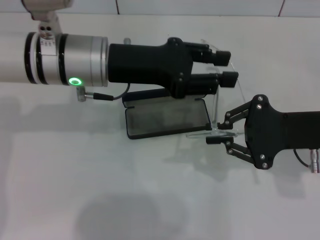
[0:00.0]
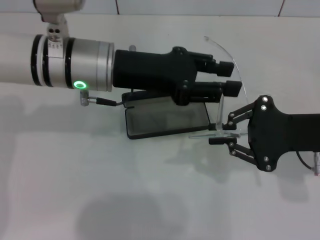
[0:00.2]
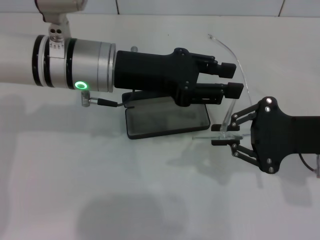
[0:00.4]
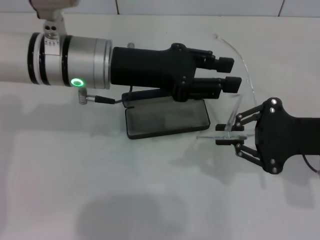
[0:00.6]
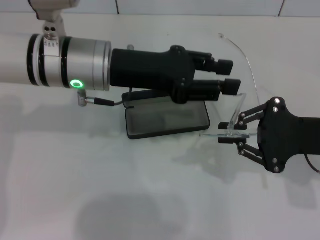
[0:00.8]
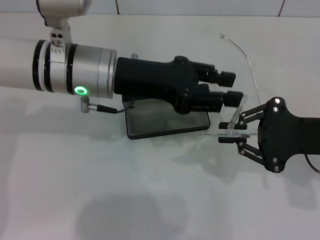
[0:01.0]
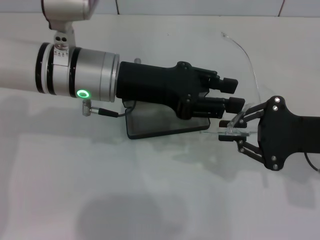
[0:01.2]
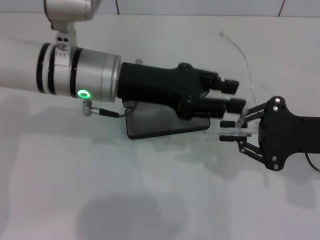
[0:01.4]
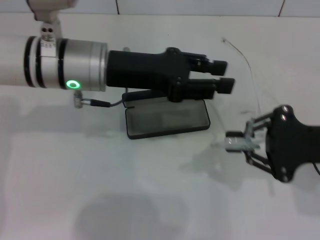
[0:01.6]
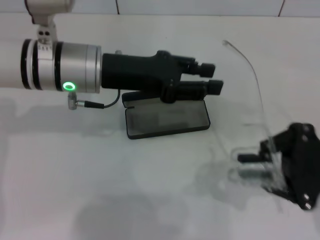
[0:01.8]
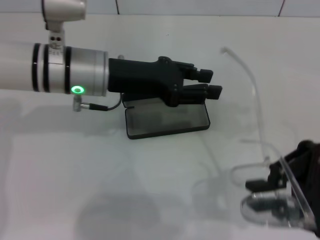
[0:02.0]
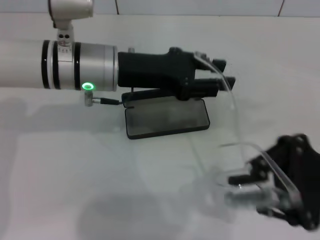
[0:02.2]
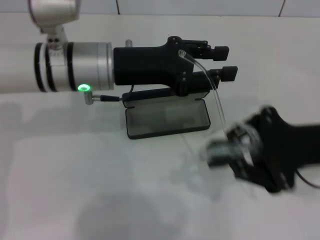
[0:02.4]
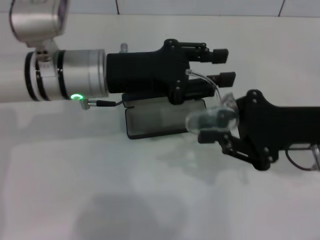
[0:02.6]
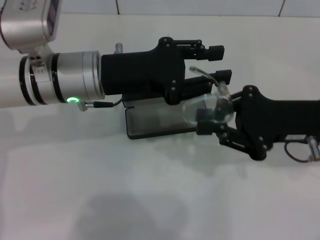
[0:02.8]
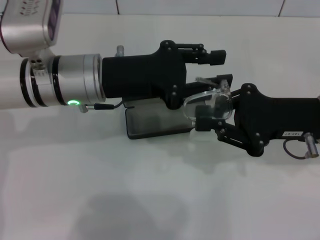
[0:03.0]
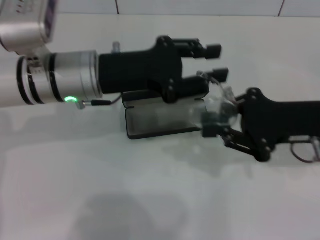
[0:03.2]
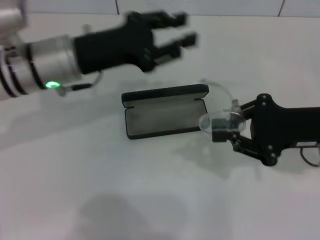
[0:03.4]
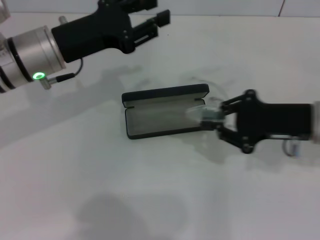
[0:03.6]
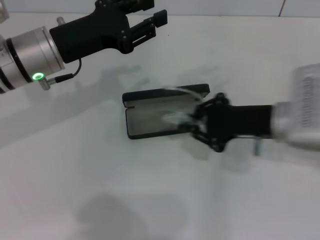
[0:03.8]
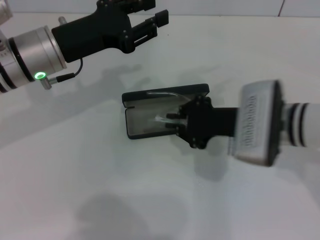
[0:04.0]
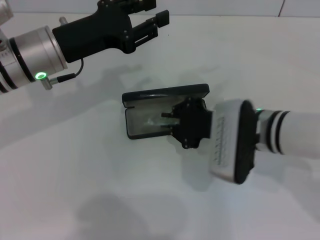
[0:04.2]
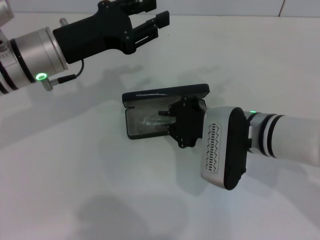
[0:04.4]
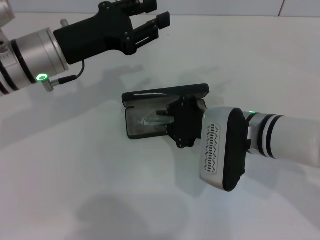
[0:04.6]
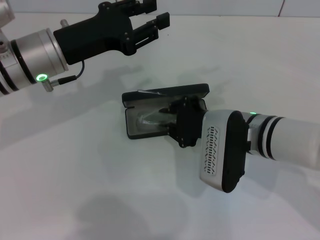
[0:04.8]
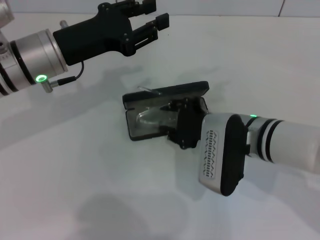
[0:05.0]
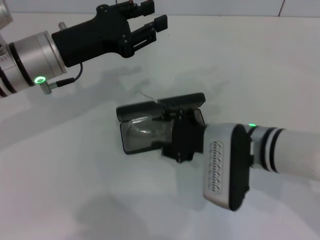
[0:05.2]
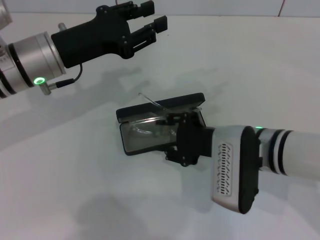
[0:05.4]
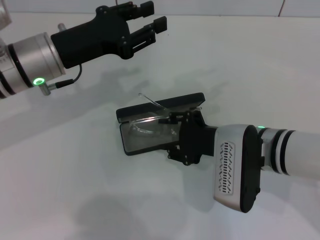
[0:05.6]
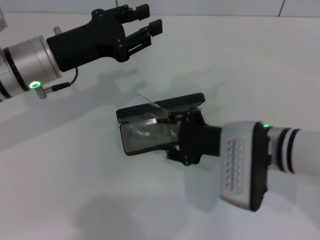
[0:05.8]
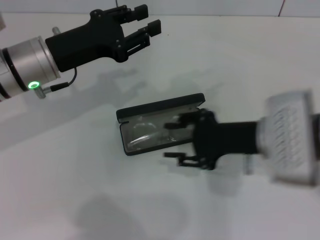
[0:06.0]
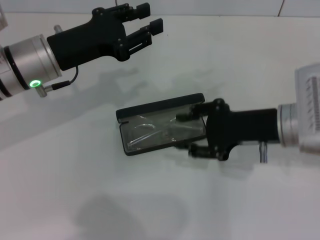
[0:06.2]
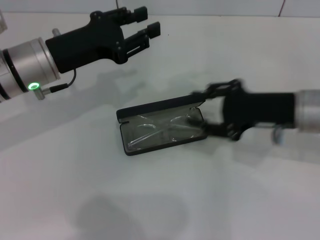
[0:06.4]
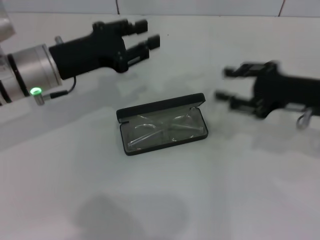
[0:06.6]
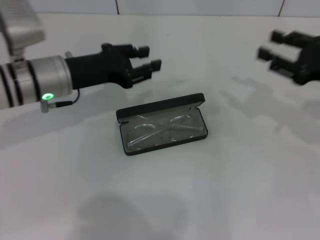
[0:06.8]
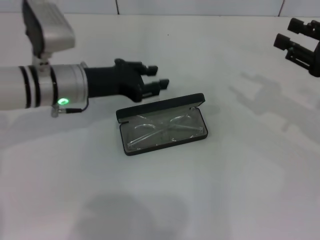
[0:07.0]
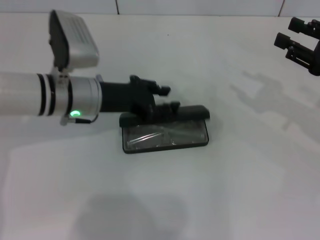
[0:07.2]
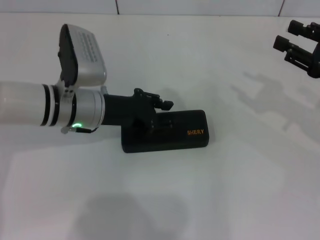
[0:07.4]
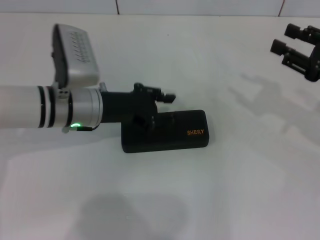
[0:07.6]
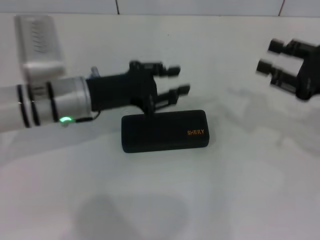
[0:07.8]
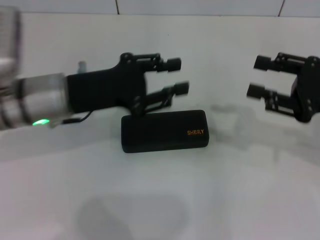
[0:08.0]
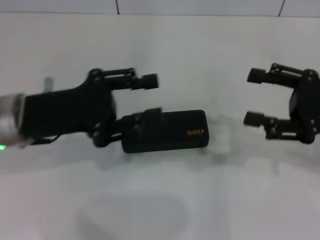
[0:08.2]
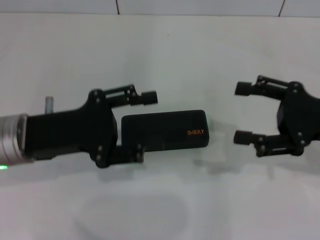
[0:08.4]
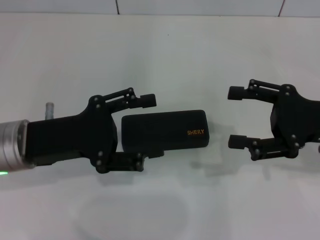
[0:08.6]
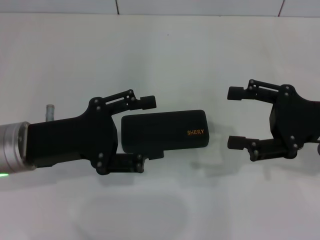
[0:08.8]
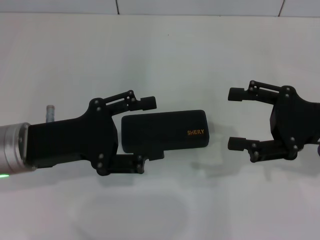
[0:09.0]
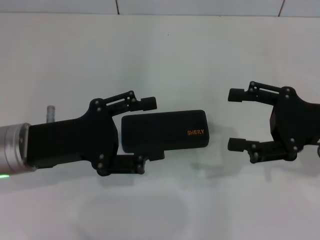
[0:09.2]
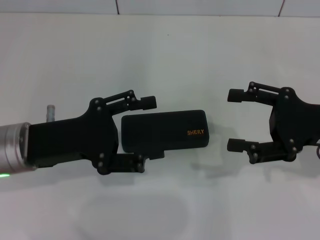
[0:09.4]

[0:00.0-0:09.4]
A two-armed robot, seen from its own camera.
Step, 0:00.0 to 0:03.0: Lift the glasses with your right hand.
Step, 0:03.2 to 0:06.0: Put the glasses into the case with your right hand.
Step, 0:06.2 to 0:07.2: Close the glasses case with your left hand.
0:00.0 to 0:01.6: The grippers make only small movements.
0:03.2 to 0:04.8: The left gripper moves some 5 cm. Meanwhile the right gripper is displaced to the left and downward by about 15 cm.
0:04.8 to 0:06.2: The right gripper moves to the right, roughly 5 cm.
0:06.2 to 0:07.8: The left gripper ends up approximately 5 cm from where it was; the right gripper heads to the right, covering about 10 cm.
0:07.8 to 0:09.4: The right gripper opens. Meanwhile the left gripper heads backward and to the left, covering some 10 cm, and opens its fingers.
